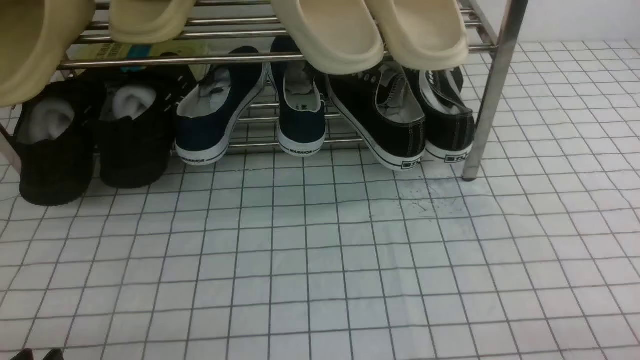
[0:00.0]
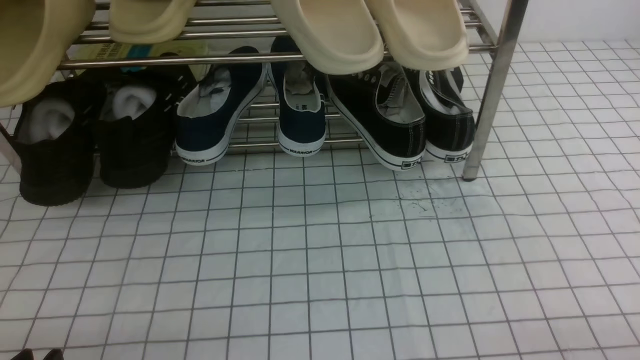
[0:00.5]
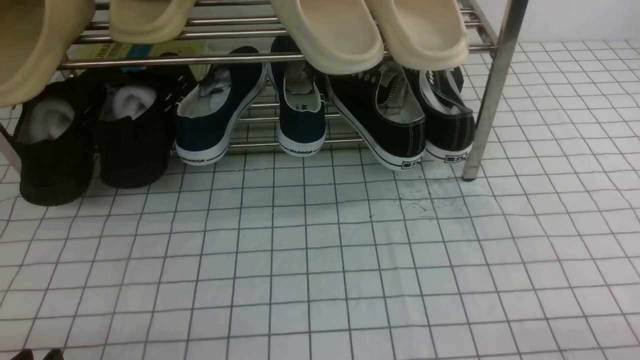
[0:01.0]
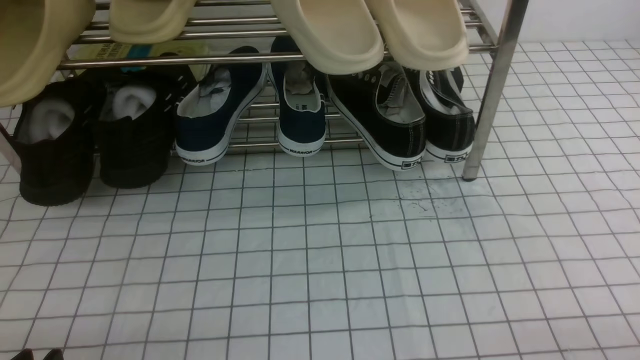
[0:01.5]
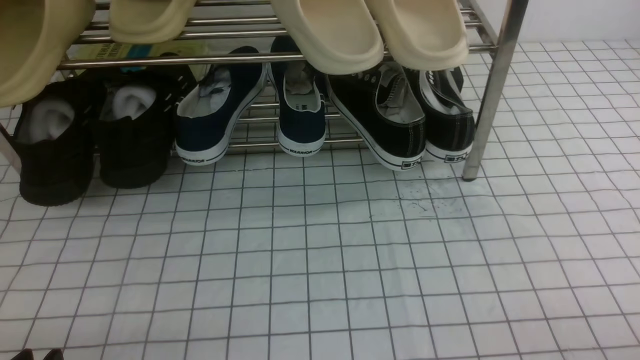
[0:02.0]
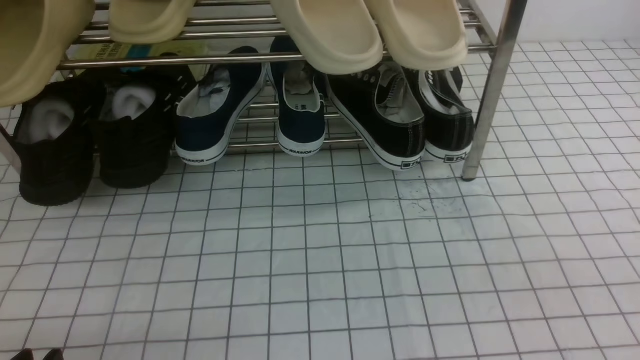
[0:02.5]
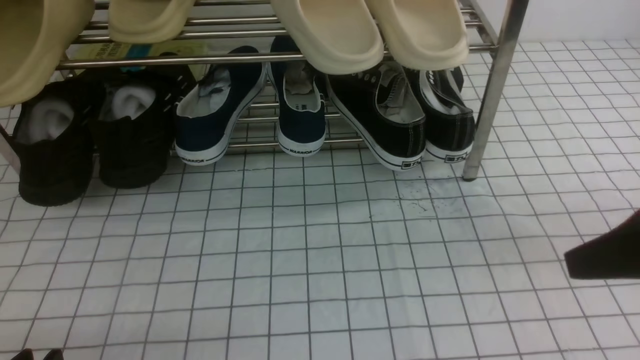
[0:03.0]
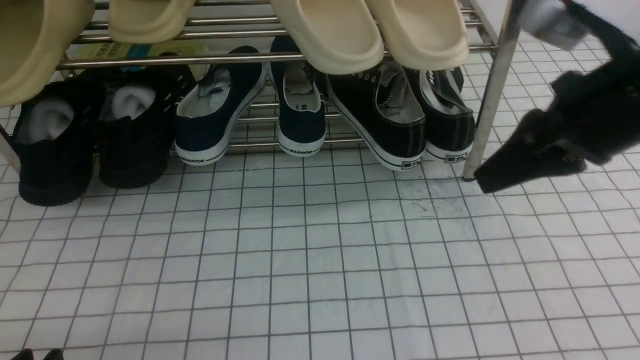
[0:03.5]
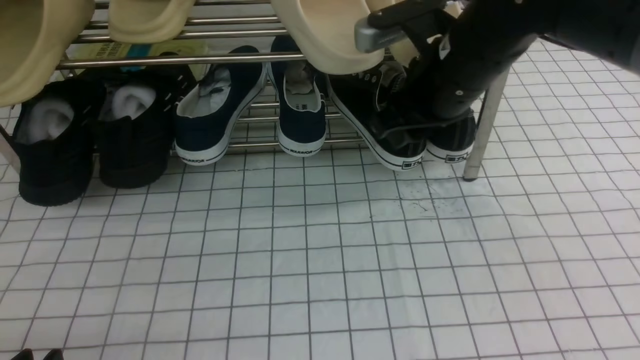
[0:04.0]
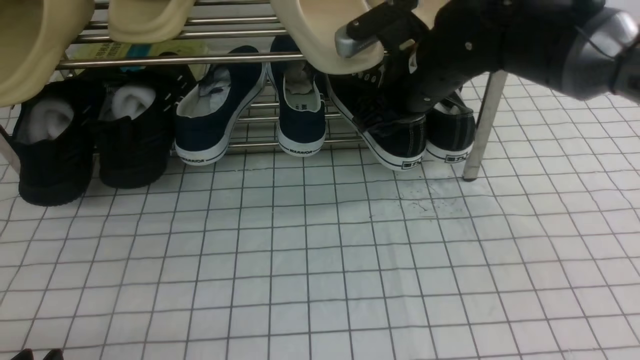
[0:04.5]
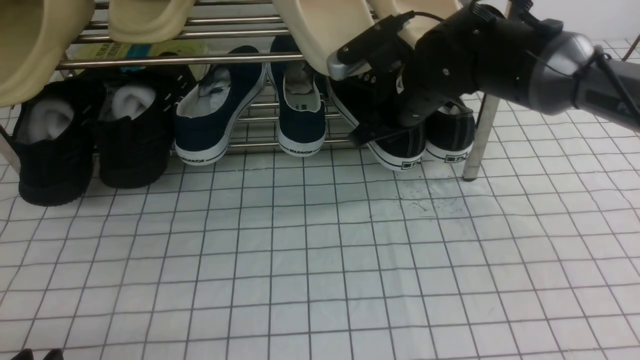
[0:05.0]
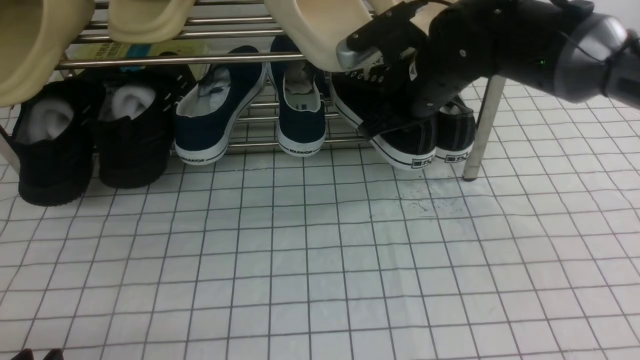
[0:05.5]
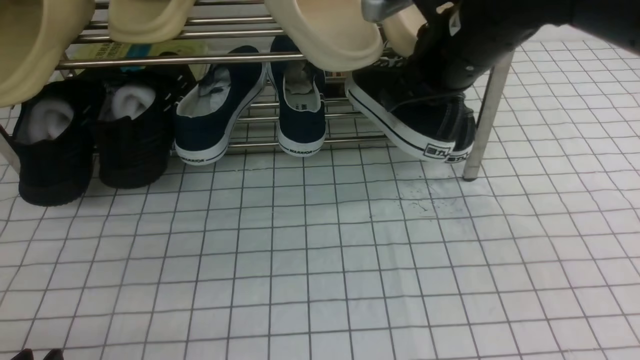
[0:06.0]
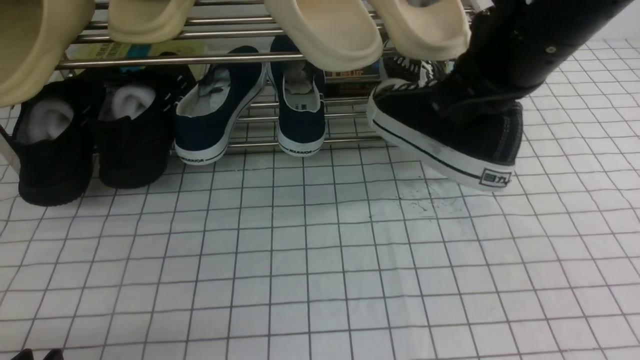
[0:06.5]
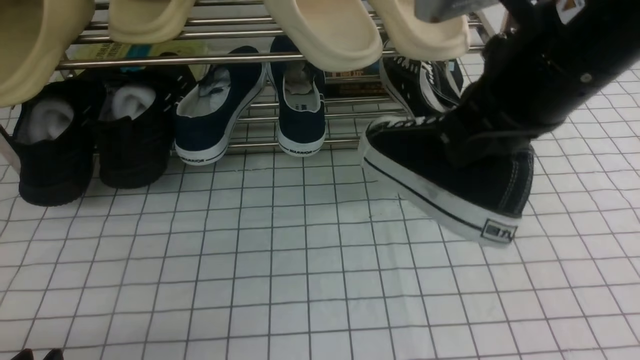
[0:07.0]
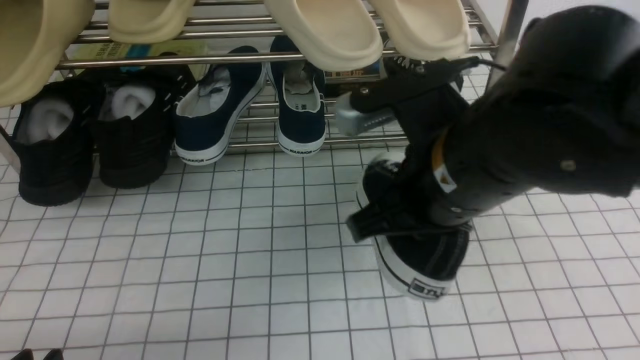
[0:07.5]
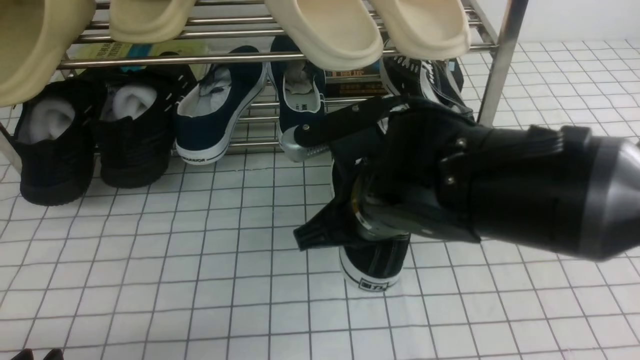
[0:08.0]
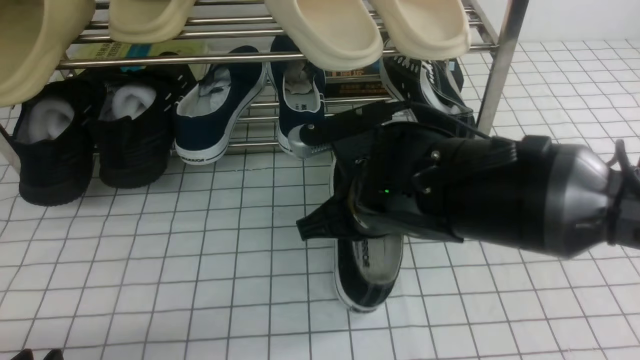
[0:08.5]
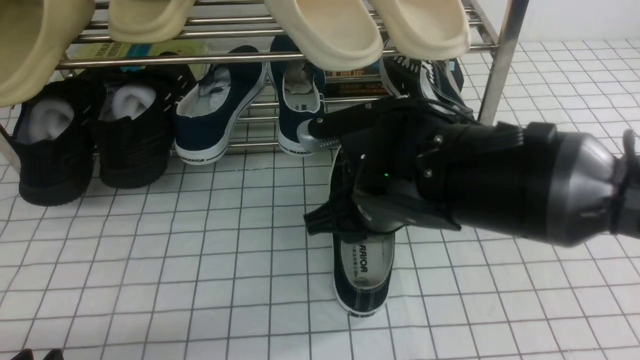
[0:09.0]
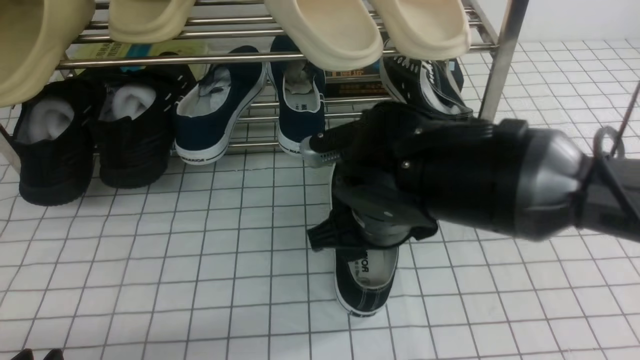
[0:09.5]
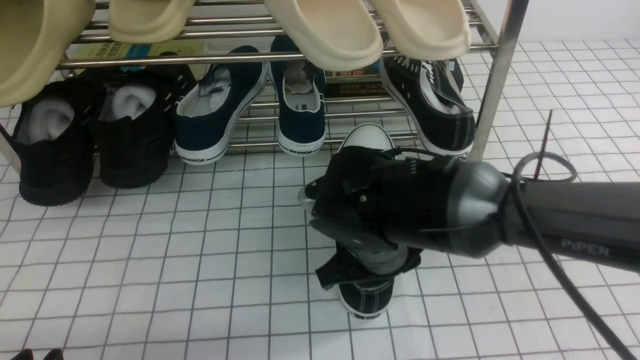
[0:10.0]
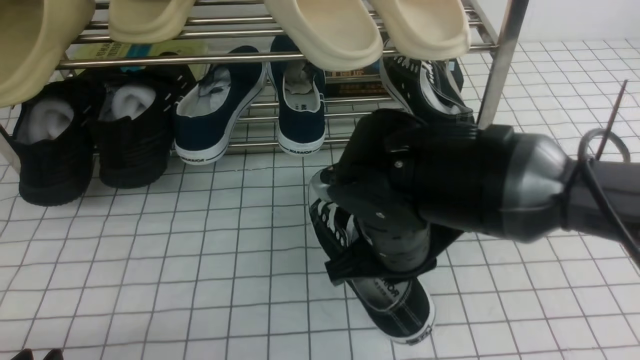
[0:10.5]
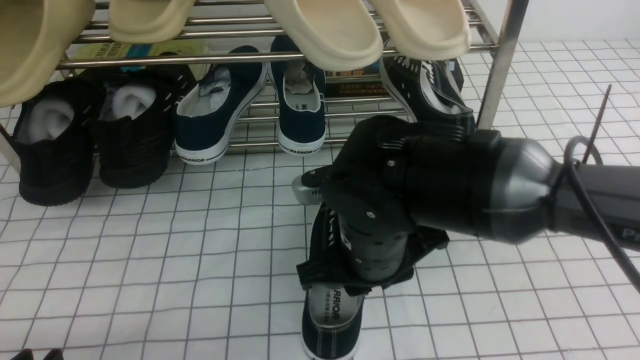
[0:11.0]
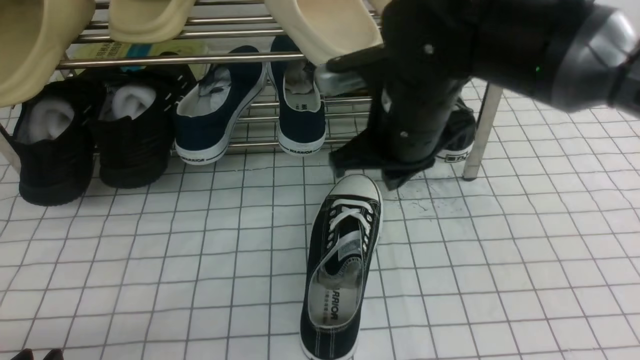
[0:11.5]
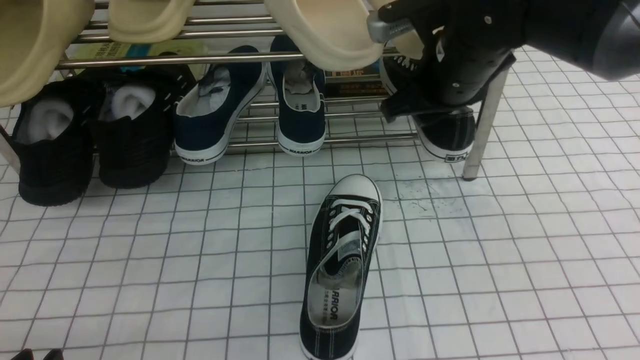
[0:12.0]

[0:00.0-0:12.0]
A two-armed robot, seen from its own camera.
Step, 0:00.0 to 0:05.0: use the right arm to clamp a shoe on the right side of the shoe rack.
Step, 0:05.5 to 0:11.0: use the right arm to take out the clamped shoe from the shoe rack and put it down.
0:02.0 to 0:04.0: The right gripper heads forward, to the left and upward, covering some 40 cm, and closes, then opens again.
0:04.0 to 0:06.0: The right gripper travels downward and back again, about 5 cm each way, and closes up.
0:06.0 to 0:08.0: The right gripper shifts approximately 15 cm backward, downward and to the left.
0:08.0 to 0:10.0: The right gripper goes some 5 cm downward, and opens and closes again.
0:10.0 to 0:12.0: The right gripper moves forward, upward and to the right, approximately 15 cm.

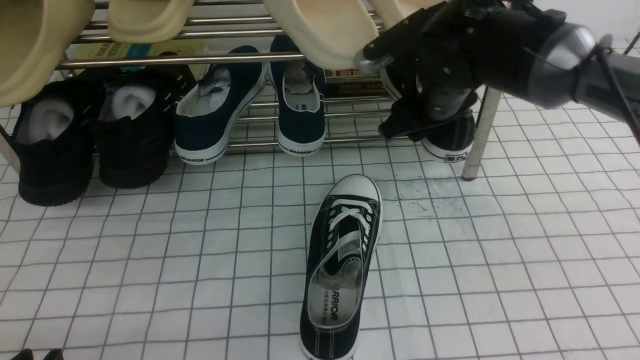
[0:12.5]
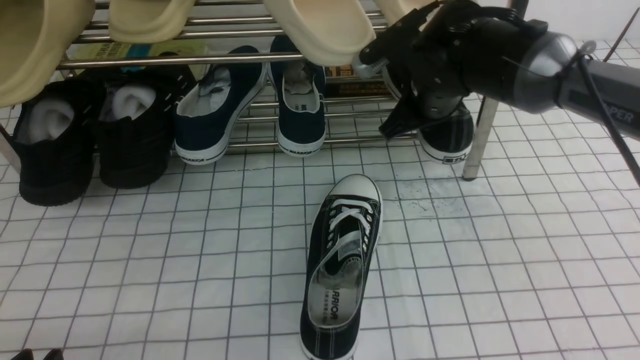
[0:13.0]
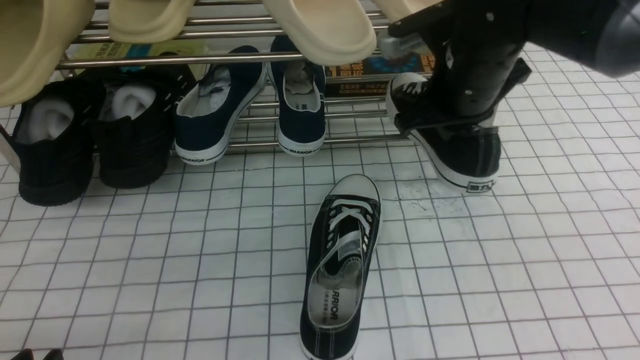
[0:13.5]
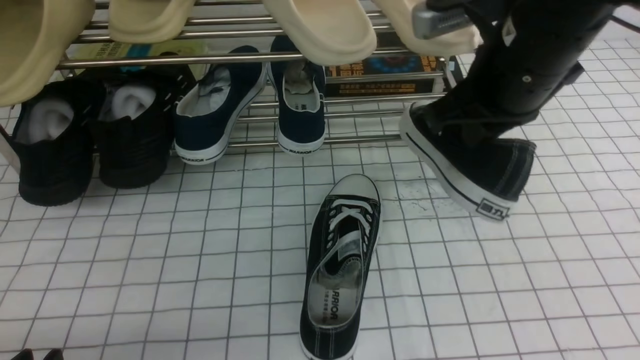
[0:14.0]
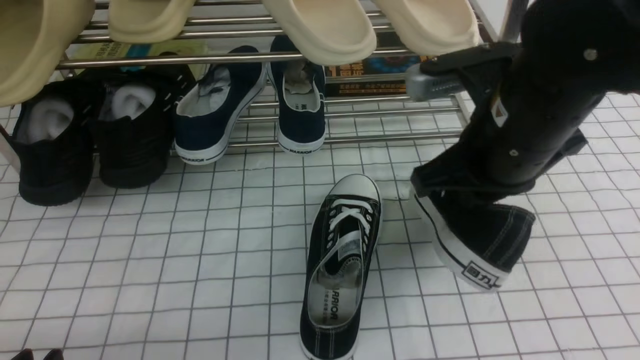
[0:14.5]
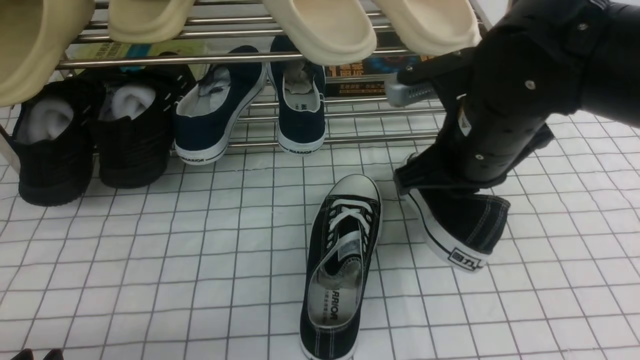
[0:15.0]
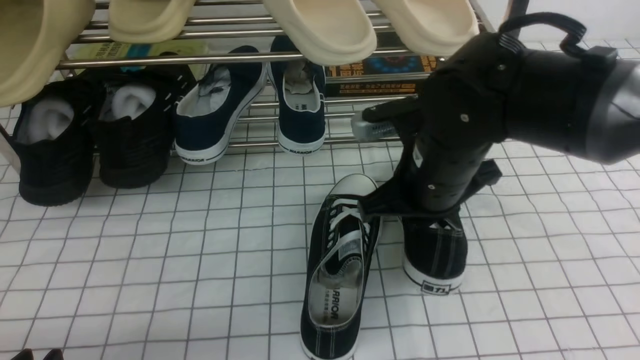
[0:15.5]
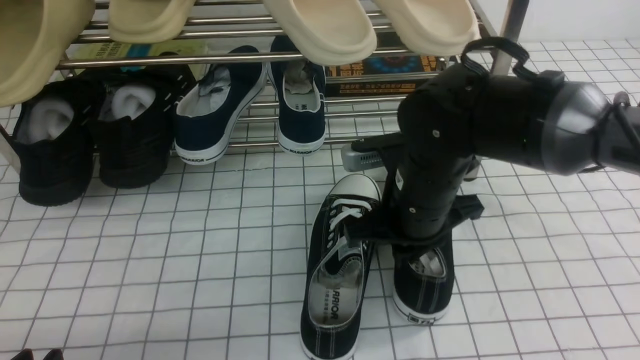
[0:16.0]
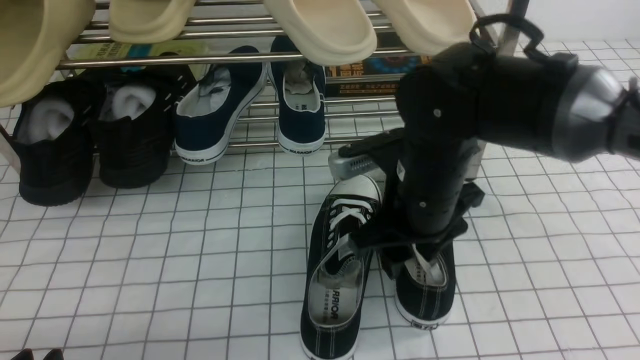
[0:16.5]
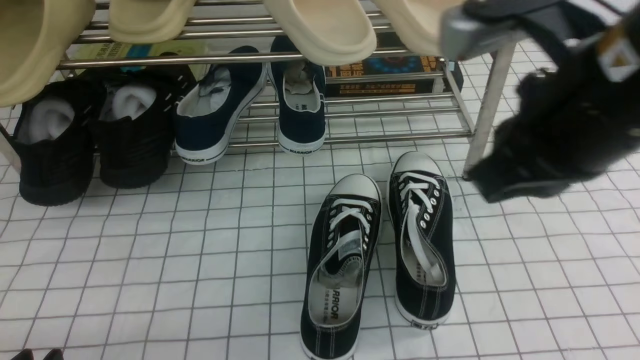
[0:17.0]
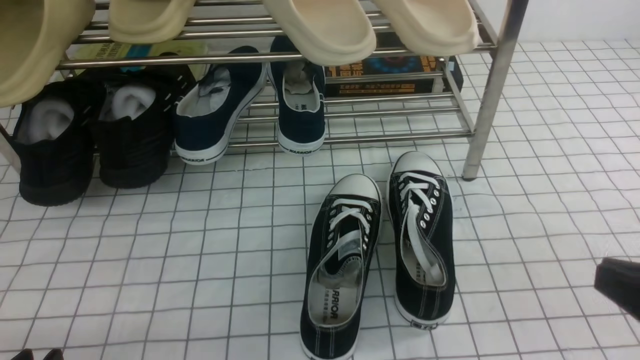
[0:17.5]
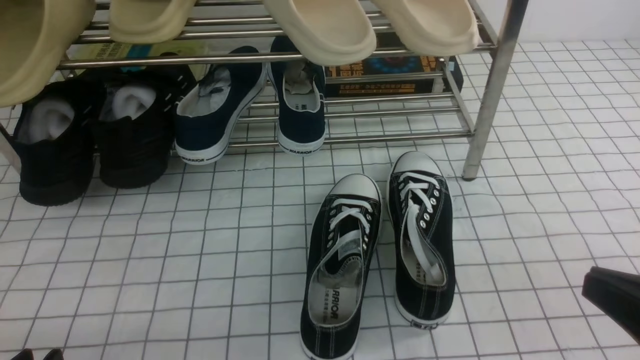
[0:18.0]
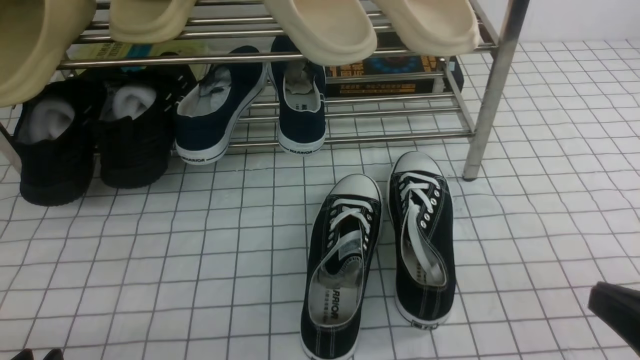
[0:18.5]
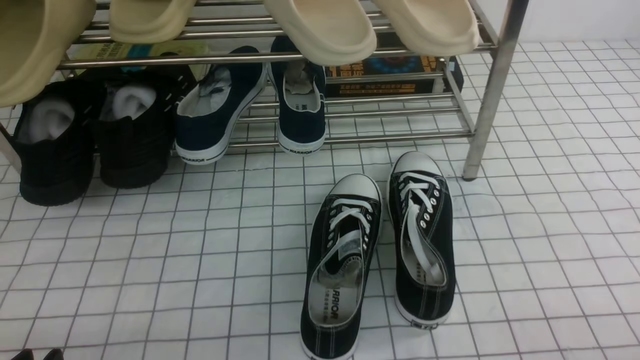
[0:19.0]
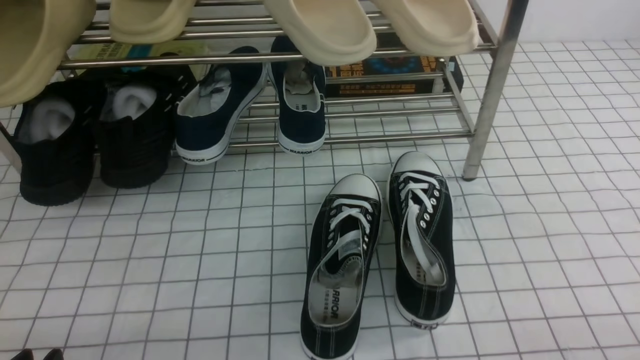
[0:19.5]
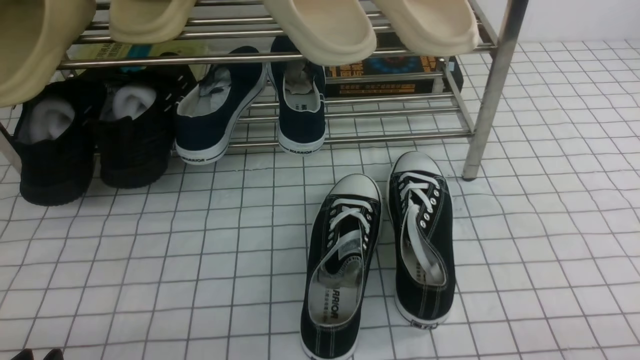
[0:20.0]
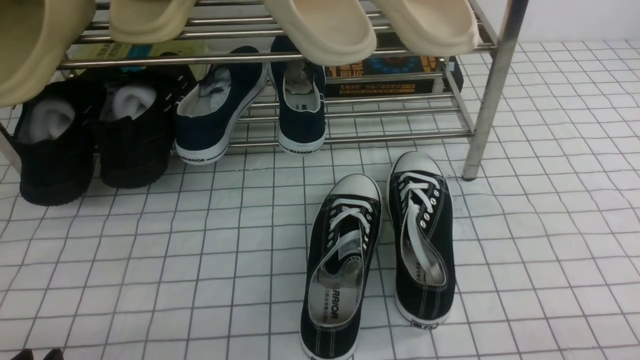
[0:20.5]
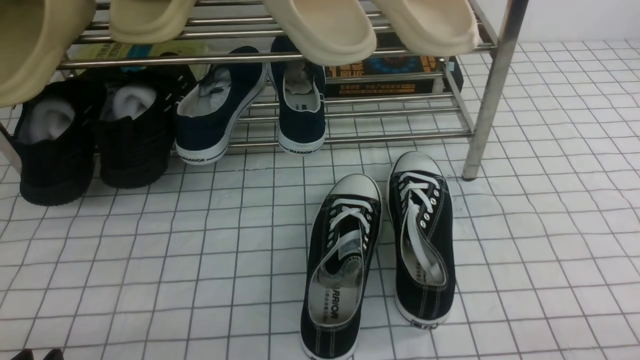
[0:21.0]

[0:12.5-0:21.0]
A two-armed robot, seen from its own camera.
Step, 0:13.5 to 0:16.5: use the right arm to take out the clamped shoe from the shoe rack and put it down.
0:12.5 to 0:14.5: The right gripper goes approximately 15 cm backward and upward, and closes.
0:14.5 to 0:16.5: The right gripper goes approximately 10 cm downward and to the left, and opens up.
0:16.5 to 0:19.0: The right gripper travels to the right and backward by approximately 35 cm, and closes its fingers.
